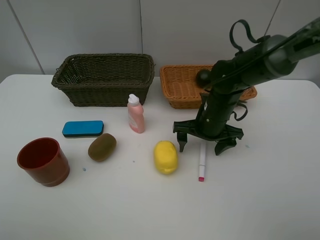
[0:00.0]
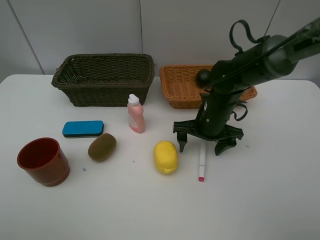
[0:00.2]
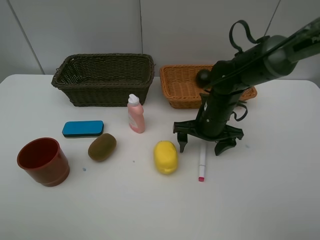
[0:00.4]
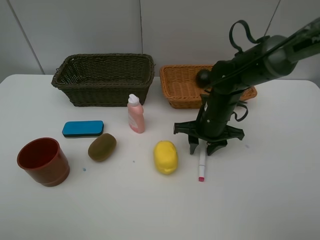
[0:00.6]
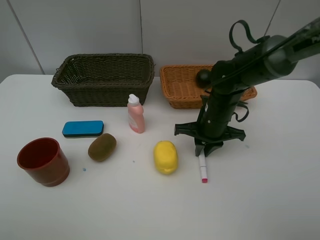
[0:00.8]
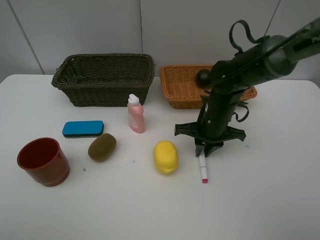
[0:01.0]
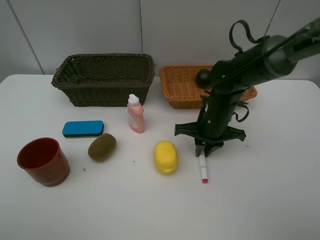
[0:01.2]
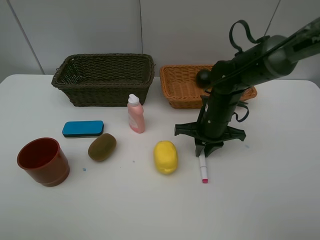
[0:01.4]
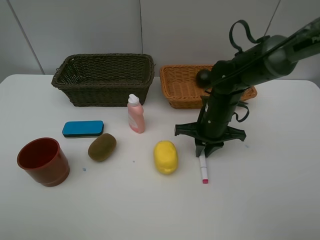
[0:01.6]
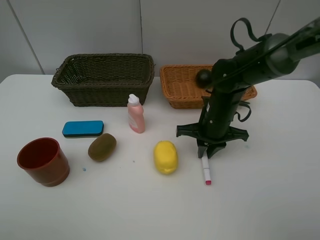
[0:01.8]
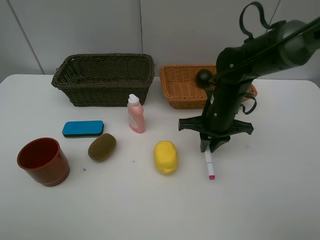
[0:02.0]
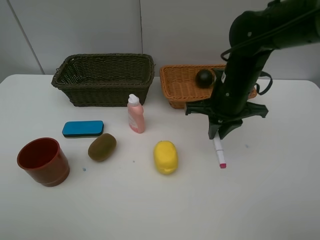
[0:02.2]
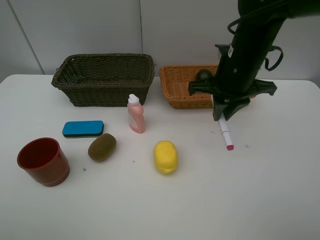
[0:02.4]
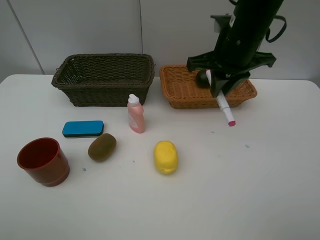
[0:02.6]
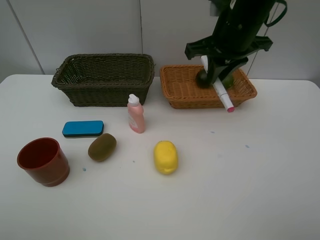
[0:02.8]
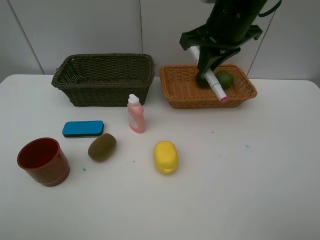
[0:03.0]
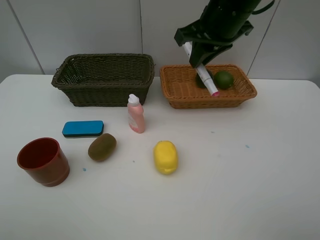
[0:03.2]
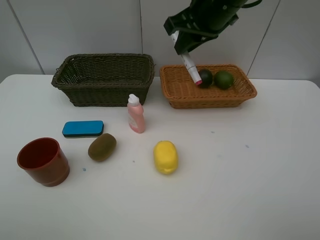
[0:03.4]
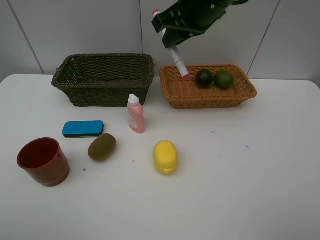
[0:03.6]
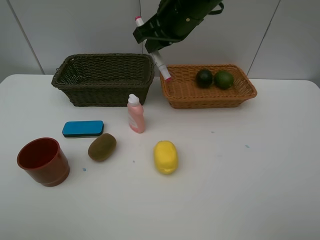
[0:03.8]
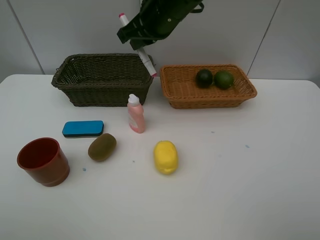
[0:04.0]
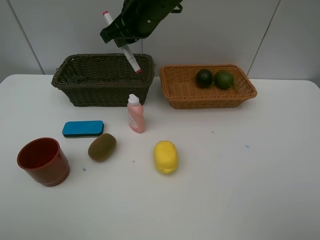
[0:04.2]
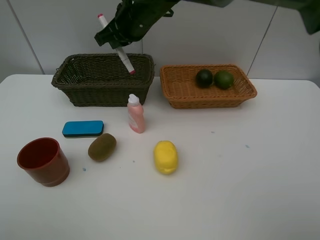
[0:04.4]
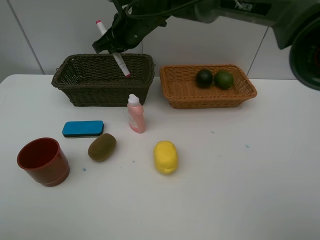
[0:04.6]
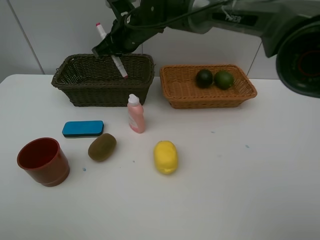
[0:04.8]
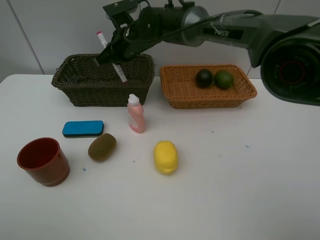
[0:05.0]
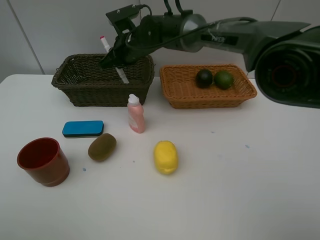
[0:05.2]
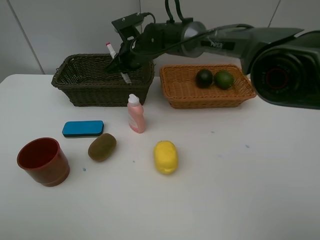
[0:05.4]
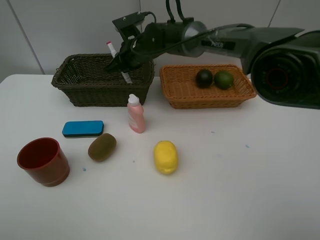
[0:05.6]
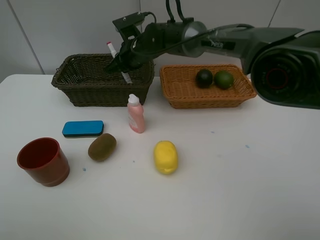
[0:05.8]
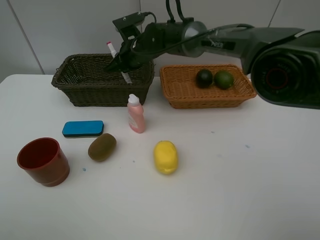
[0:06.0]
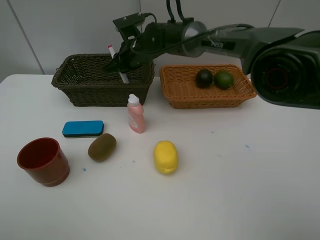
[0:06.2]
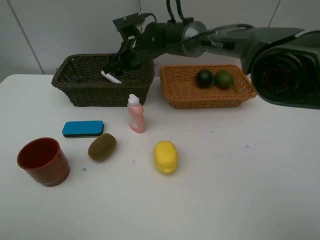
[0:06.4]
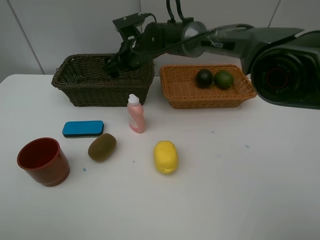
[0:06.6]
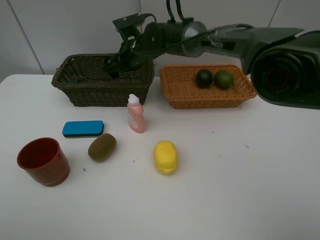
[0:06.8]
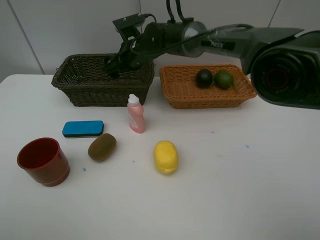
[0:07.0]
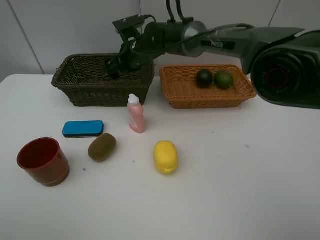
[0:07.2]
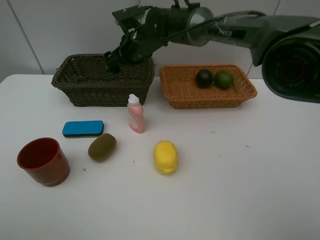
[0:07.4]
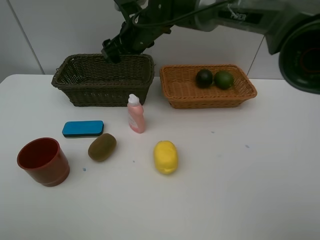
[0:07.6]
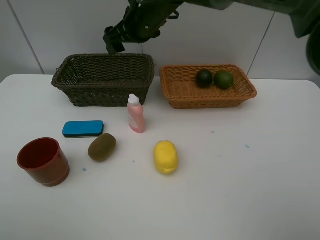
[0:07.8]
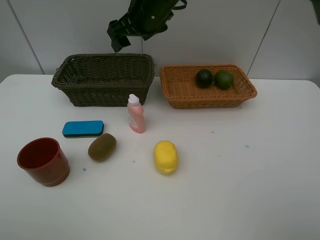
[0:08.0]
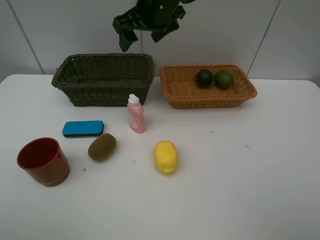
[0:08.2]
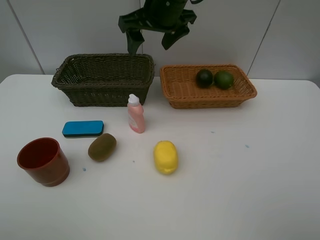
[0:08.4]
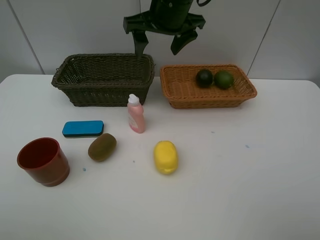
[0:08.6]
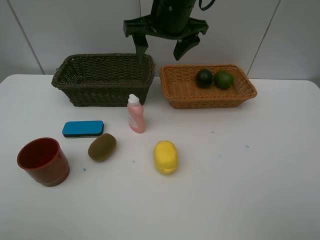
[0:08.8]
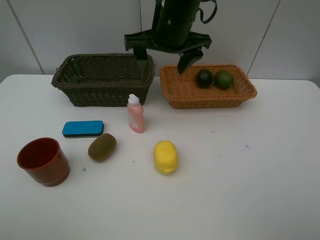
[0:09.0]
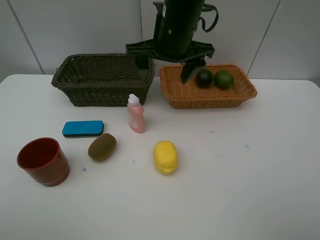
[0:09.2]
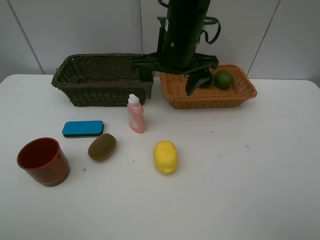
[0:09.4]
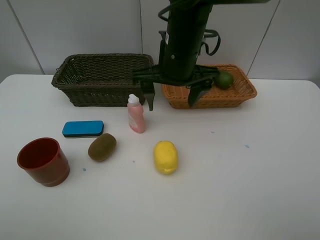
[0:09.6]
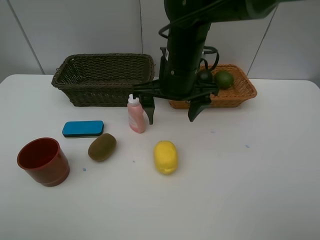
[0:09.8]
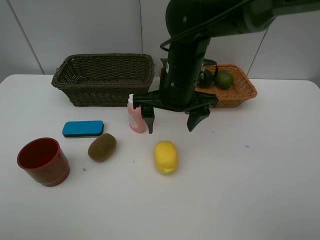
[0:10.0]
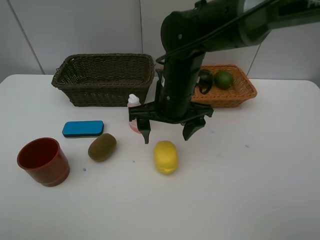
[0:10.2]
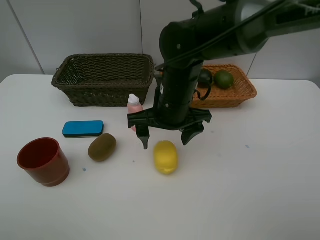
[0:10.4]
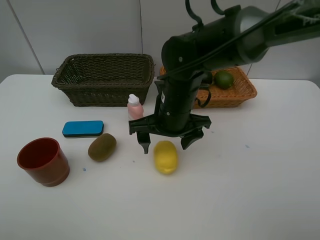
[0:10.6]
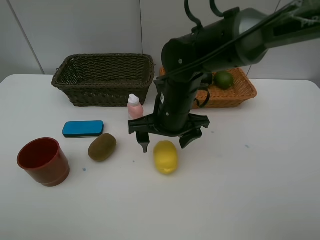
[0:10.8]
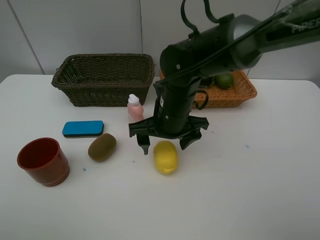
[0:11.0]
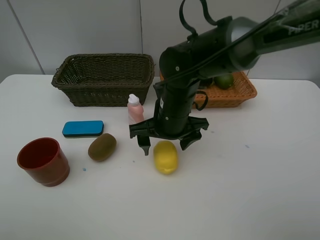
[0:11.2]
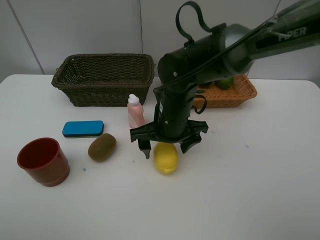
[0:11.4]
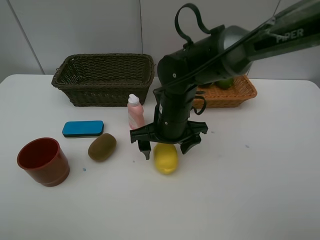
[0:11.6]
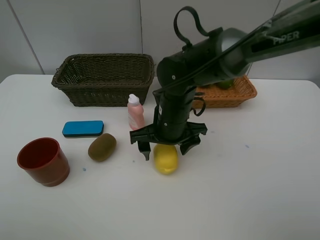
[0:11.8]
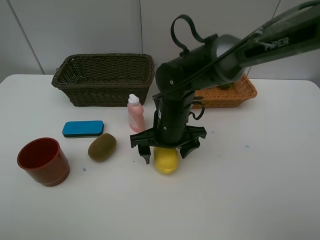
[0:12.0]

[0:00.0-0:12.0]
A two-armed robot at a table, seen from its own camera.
Task of the whole recording: Place multiple objects separately in different baskets.
Step, 0:00.0 to 0:02.0: Pick up pink marker pen with right gripper.
Step, 0:02.2 to 0:06.6: Place the pink marker pen in the dark basket with right gripper.
0:00.0 to 0:01.6: The right gripper closes.
0:01.6 to 0:03.0: The right gripper travels upward by approximately 20 cm.
0:03.0 to 0:04.4: The right gripper moves to the left and forward, roughly 15 cm.
0:04.4 to 0:06.0: The right gripper heads downward, covering some 10 cm.
0:06.0 to 0:07.6: The right gripper goes approximately 5 cm upward, and opens.
0:07.6 to 0:09.0: The right gripper shifts approximately 10 cm backward, to the right and upward.
0:09.0 to 0:10.4: The right gripper travels downward and backward by roughly 15 cm.
0:10.4 to 0:12.0: The right gripper shifts some 5 cm downward.

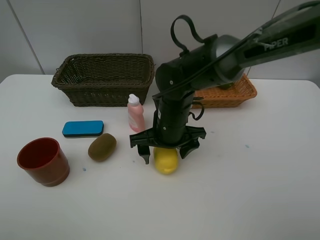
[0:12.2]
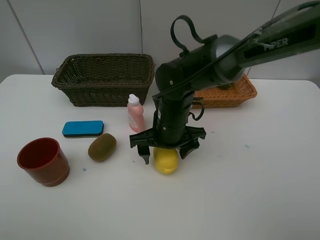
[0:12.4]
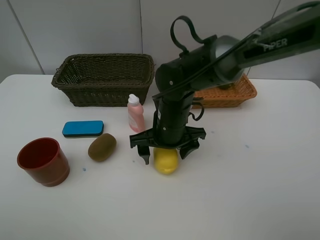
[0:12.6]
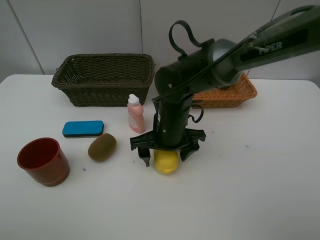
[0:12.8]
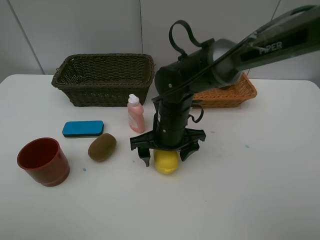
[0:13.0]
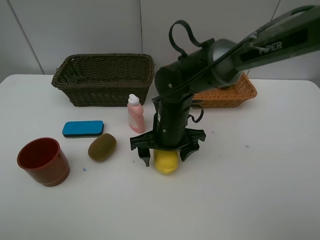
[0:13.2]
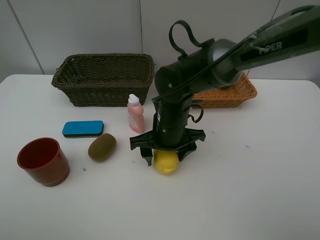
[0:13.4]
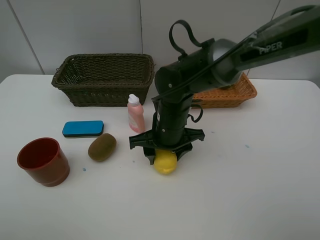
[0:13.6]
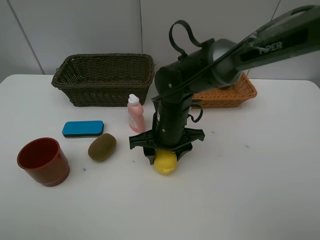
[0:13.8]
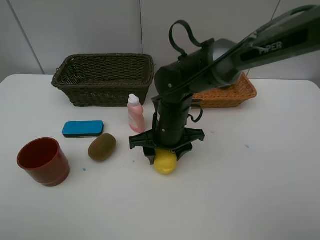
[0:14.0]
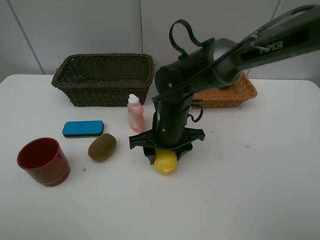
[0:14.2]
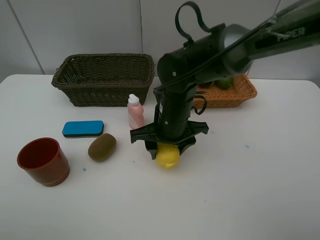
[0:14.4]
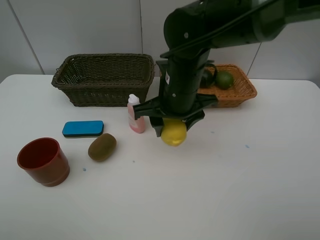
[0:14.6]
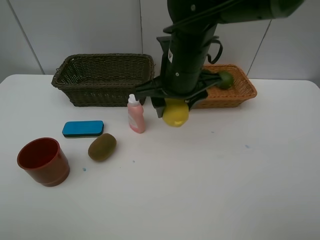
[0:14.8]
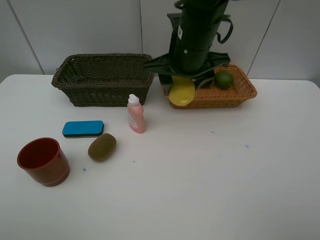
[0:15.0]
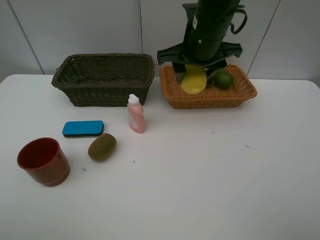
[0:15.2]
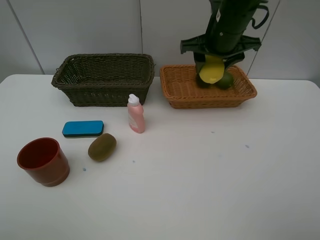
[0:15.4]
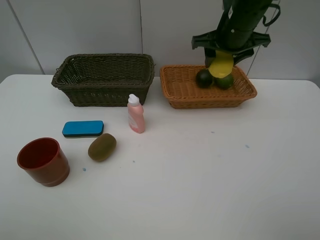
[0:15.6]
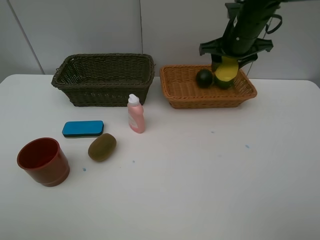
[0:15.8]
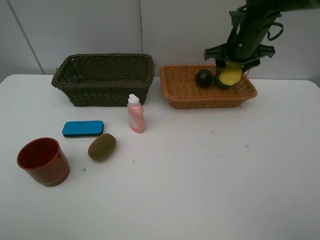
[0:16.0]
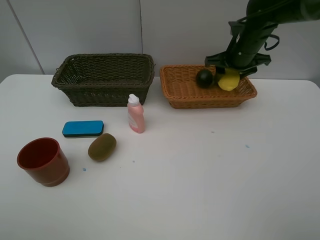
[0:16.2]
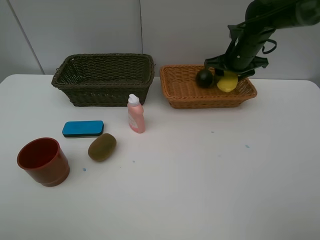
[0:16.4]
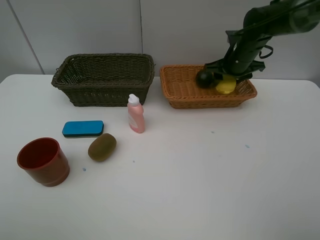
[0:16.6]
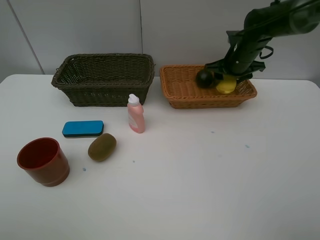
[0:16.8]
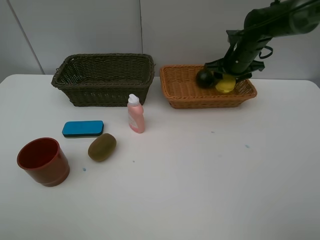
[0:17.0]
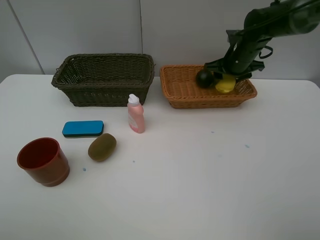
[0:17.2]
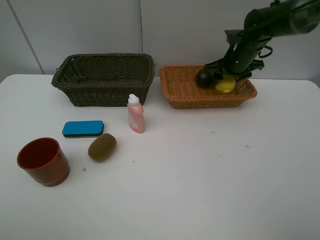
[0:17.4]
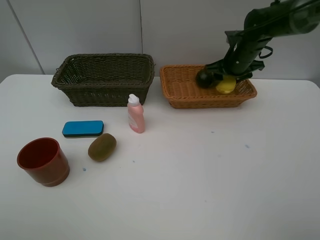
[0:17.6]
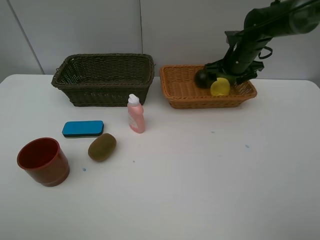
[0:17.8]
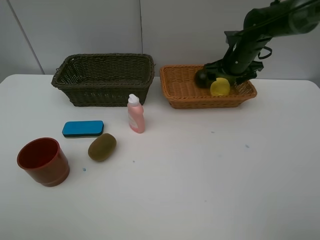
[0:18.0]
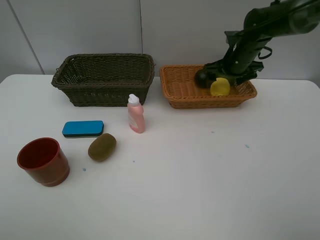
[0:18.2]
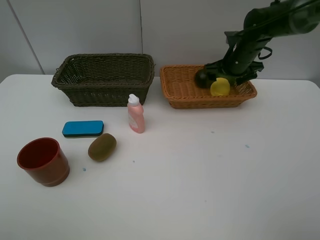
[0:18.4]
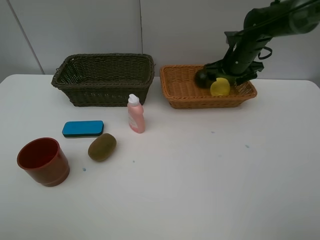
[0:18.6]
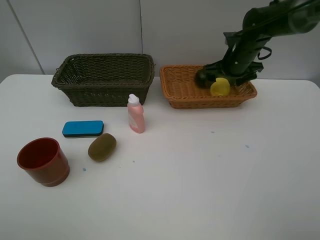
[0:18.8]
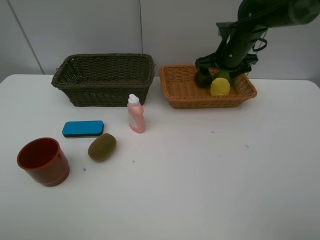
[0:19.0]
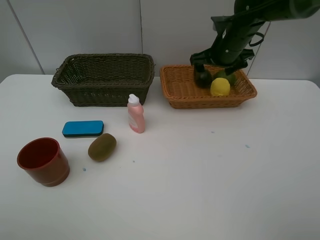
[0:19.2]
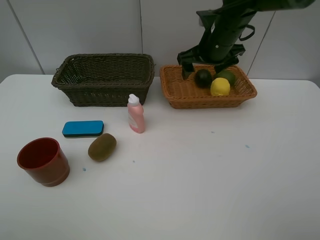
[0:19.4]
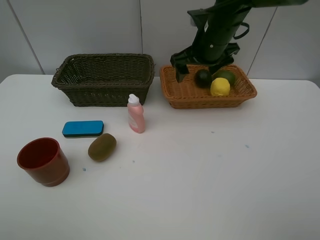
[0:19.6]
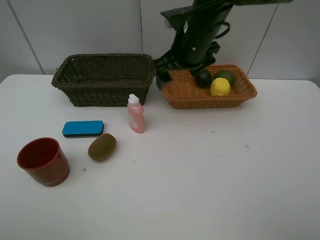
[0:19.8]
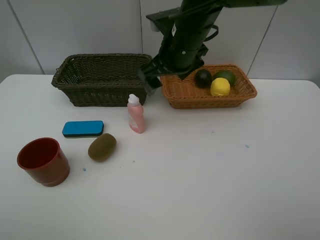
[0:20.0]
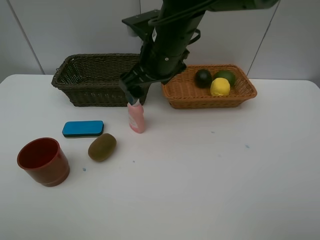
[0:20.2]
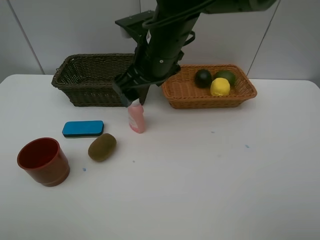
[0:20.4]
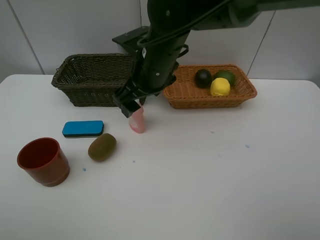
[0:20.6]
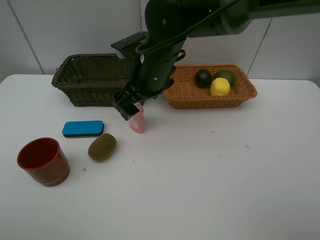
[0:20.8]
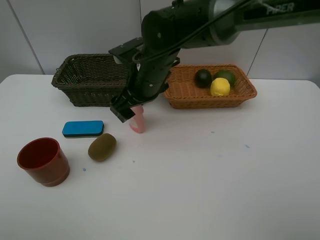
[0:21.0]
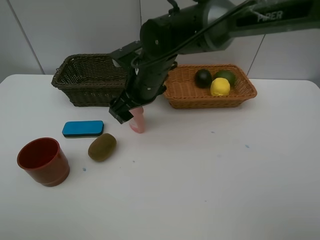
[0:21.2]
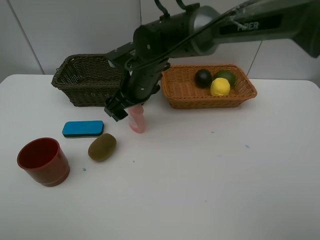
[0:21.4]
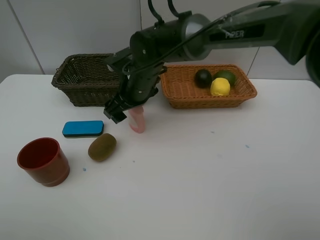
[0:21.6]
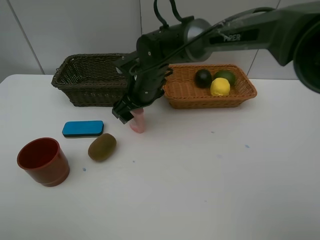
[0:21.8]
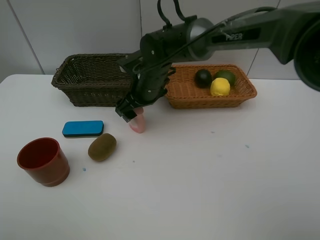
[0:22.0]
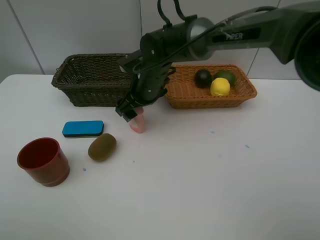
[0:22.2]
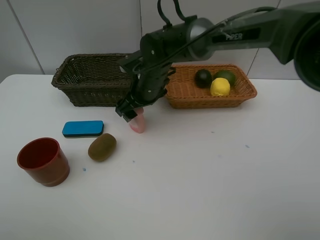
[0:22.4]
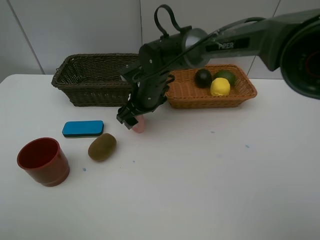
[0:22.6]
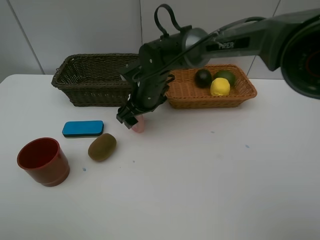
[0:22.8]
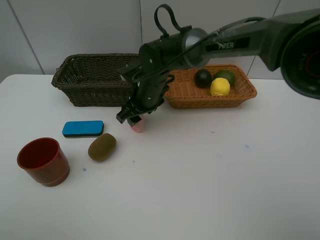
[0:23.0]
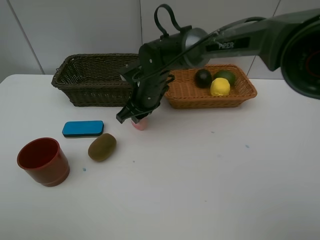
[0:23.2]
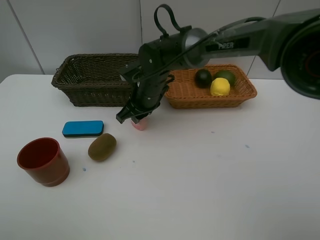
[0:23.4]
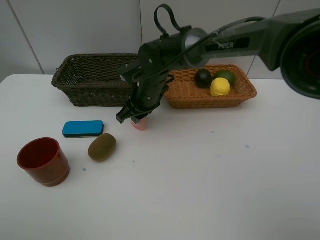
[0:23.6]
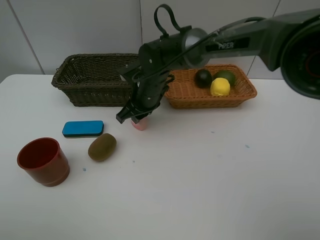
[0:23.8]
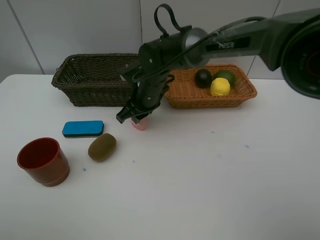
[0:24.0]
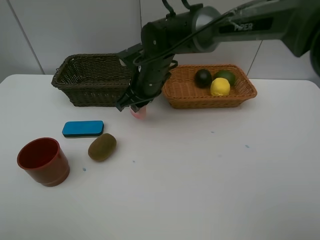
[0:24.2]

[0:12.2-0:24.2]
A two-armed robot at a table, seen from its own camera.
Task of the whole recording: Place multiple objects separately in different baskets.
Step, 0:12.2 to 0:14.4: Pick up the lemon with right gripper.
Step, 0:14.6 to 0:18.4: Place the lemon in the light basket with right gripper.
0:12.2 to 0:13.8: Both grippers stay about where they are.
0:13.8 to 0:15.2: The right gripper moves upward and forward, about 15 cm.
0:15.2 to 0:16.6: The right gripper moves to the right, forward and downward, some 20 cm.
0:16.6 to 0:18.2: The right gripper opens.
0:18.2 to 0:19.8: The right gripper shifts about 20 cm to the left, backward and upward.
0:19.8 to 0:21.2: The right gripper heads to the left and downward, covering some 10 cm.
0:21.2 to 0:22.6: The right gripper travels downward by about 5 cm.
0:22.6 to 0:24.2: The right gripper closes up.
